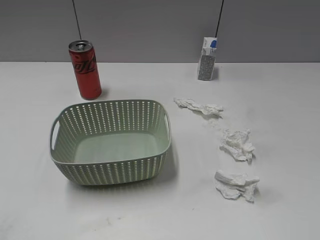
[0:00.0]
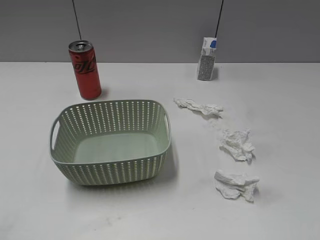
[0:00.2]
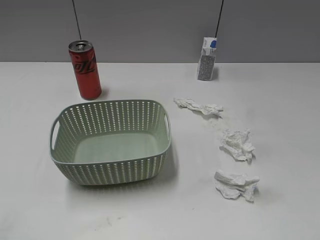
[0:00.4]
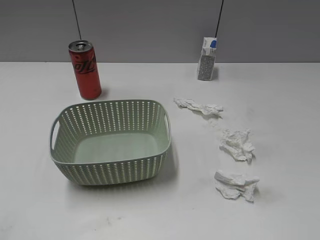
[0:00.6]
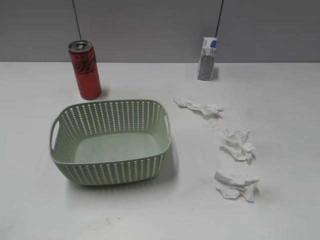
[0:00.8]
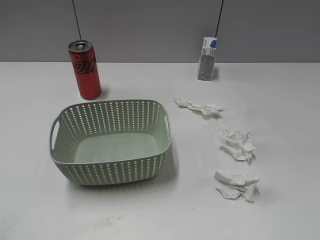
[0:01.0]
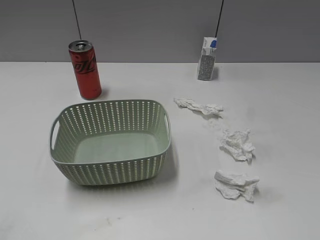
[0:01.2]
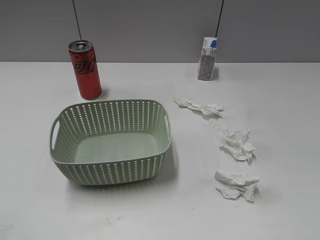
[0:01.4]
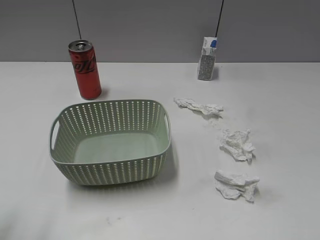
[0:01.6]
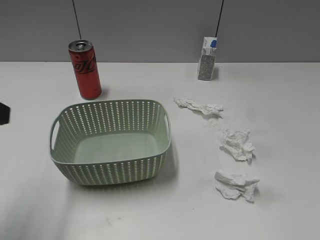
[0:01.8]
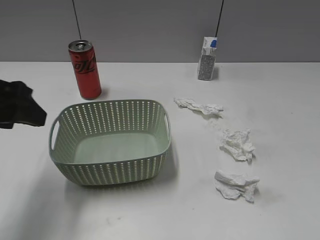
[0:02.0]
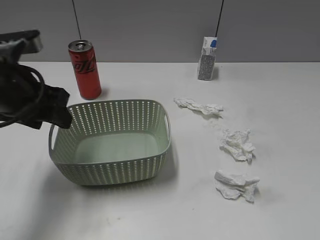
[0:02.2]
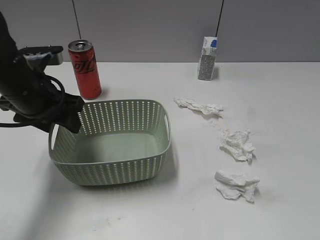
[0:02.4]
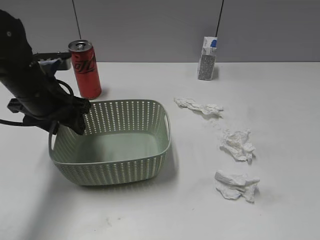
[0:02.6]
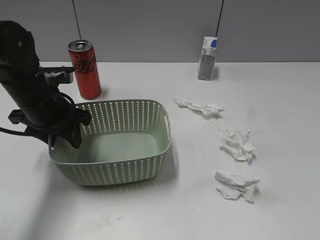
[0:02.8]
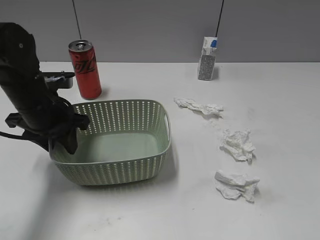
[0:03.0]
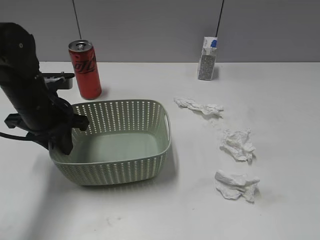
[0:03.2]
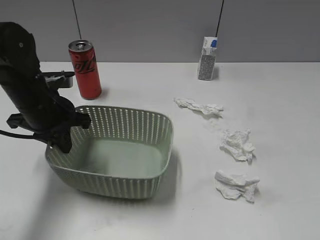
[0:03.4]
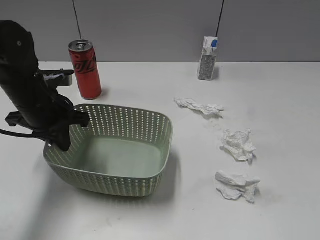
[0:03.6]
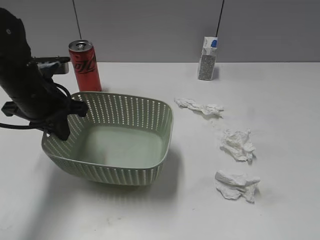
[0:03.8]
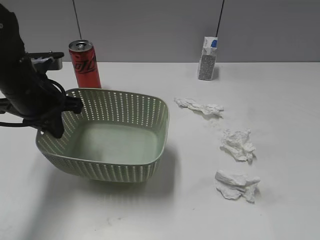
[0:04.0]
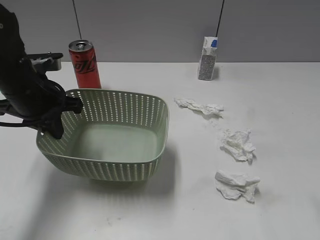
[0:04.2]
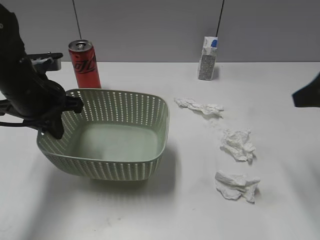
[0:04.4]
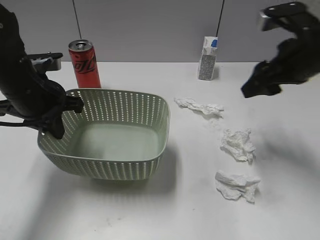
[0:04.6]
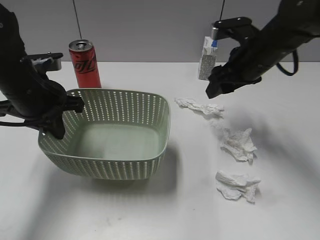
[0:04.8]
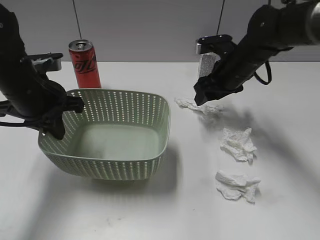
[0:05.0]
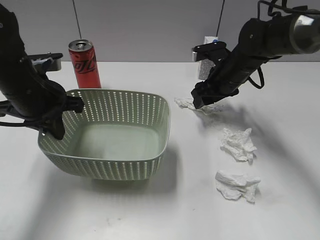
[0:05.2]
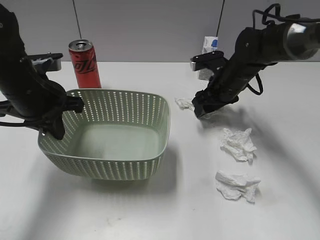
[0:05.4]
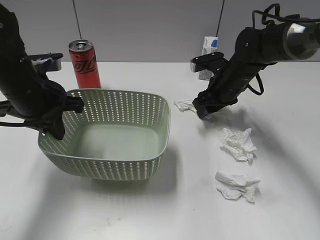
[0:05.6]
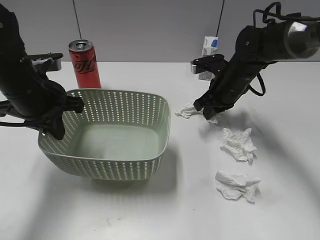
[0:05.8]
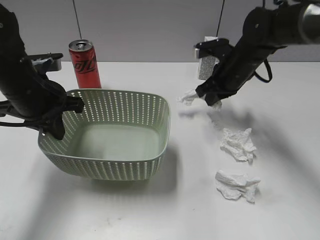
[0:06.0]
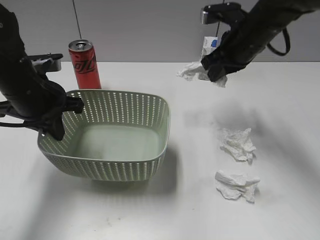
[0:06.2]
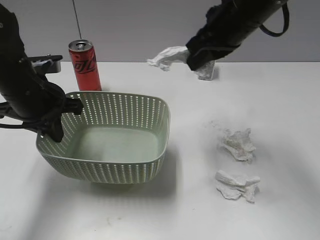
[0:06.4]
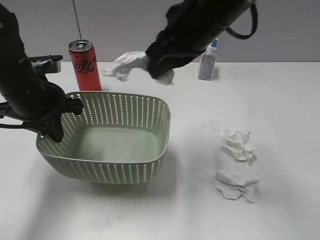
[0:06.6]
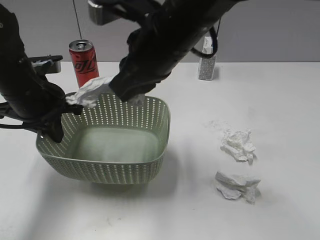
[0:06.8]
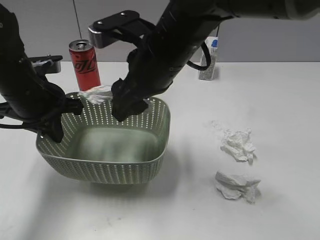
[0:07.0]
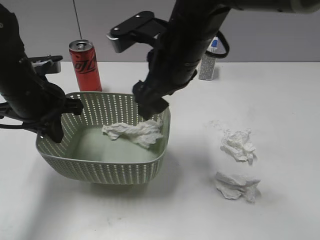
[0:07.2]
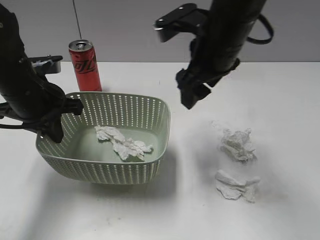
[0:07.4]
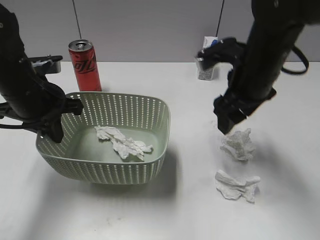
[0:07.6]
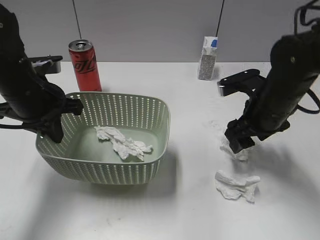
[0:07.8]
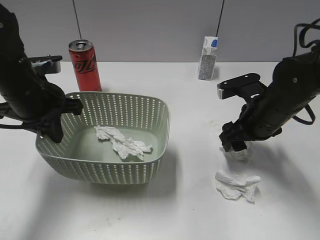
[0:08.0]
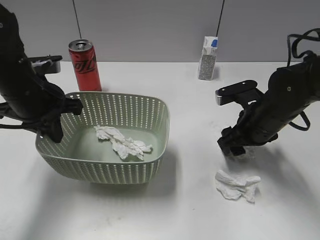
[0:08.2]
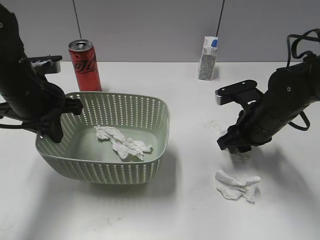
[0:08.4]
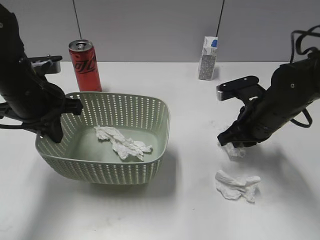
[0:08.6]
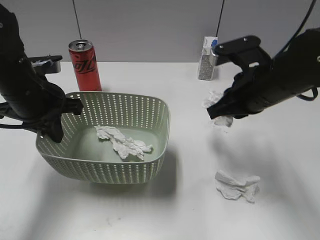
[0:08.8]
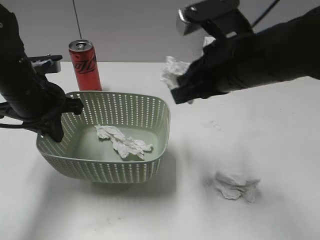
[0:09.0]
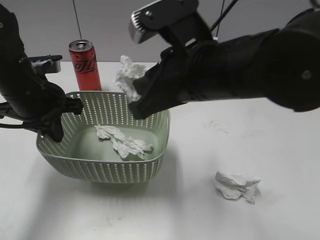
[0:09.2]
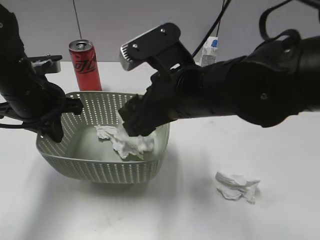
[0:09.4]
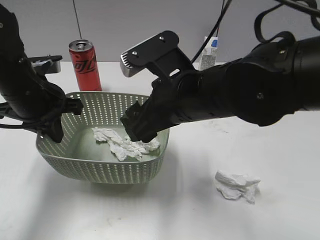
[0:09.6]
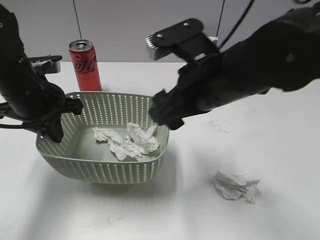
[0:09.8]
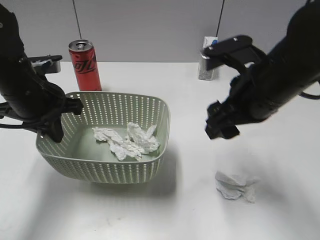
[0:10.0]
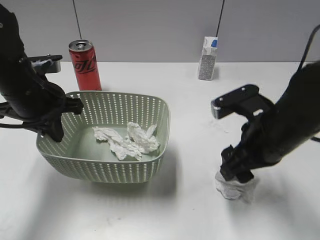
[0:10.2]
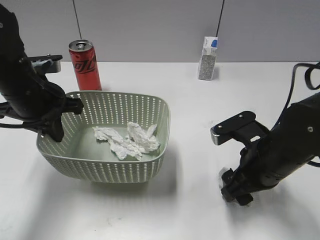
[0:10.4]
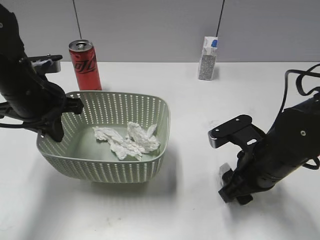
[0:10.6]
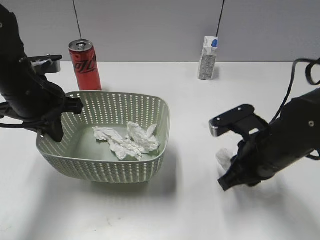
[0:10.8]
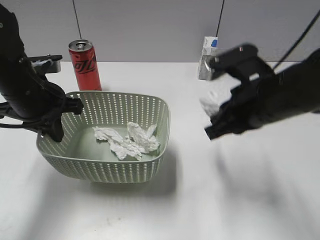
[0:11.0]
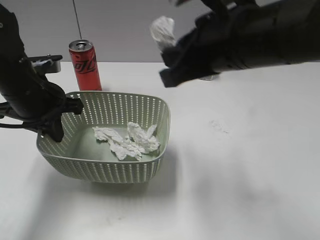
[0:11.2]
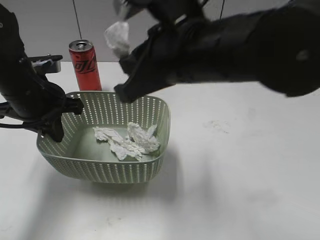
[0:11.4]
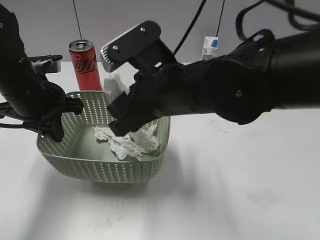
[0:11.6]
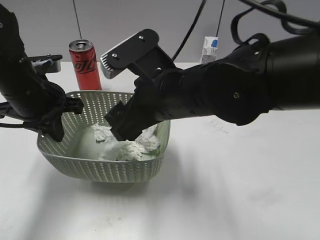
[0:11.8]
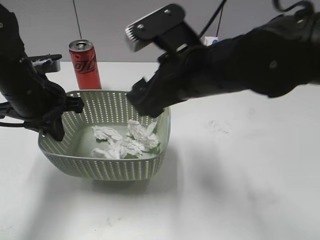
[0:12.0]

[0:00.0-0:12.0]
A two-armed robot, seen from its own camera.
Step, 0:01.8 to 0:03.6: Grasp the basket with left gripper.
Step, 0:04.4 to 0:06.0: Grasp the waste paper with right gripper.
Step, 0:06.2 to 0:07.2: Place the waste paper in the basket with right gripper.
Step, 0:07.4 to 0:08.6: Grasp the waste paper with right gripper.
Step, 0:08.8 to 0:10.0: Place the waste paper in the basket with right gripper.
Step, 0:10.2 to 0:10.8: Grasp the waste paper with right gripper.
Step, 0:11.0 to 0:12.0: Place the waste paper in the basket with right gripper.
0:01.6 to 0:03.0: The left gripper is displaced forward, downward and to the right by roughly 25 cm.
0:03.0 to 0:04.4: The right gripper goes approximately 25 cm forward, while the left gripper closes up.
0:04.4 to 0:06.0: The right gripper shifts roughly 25 cm forward, downward and to the left, and closes up.
0:06.0 to 0:07.6: The right gripper shifts about 10 cm backward and upward, and opens up.
0:07.6 to 0:09.0: The right gripper moves backward and upward, roughly 10 cm, and closes up.
0:09.0 to 0:10.4: The right gripper goes some 15 cm downward and to the right, and opens.
0:10.4 to 0:12.0: The right gripper heads upward and to the left, covering roughly 15 cm, and closes and opens again.

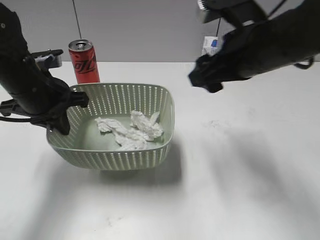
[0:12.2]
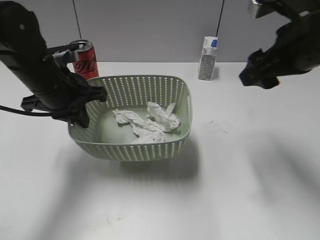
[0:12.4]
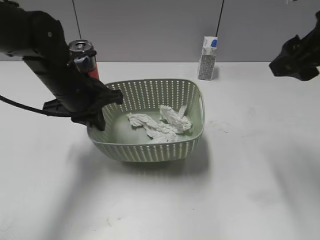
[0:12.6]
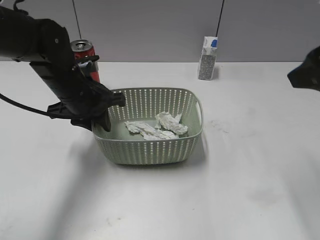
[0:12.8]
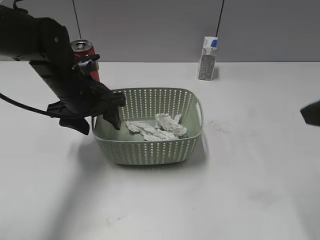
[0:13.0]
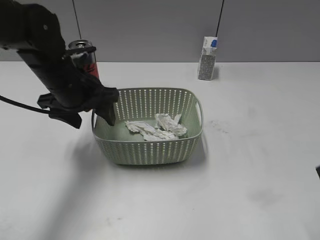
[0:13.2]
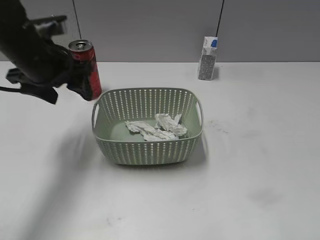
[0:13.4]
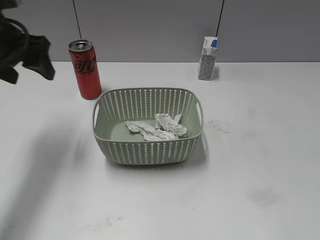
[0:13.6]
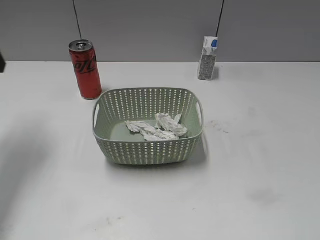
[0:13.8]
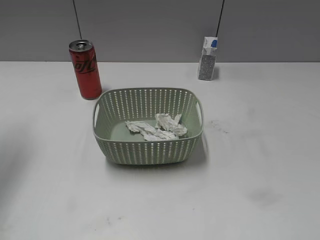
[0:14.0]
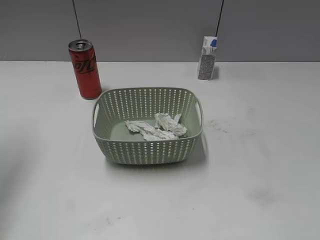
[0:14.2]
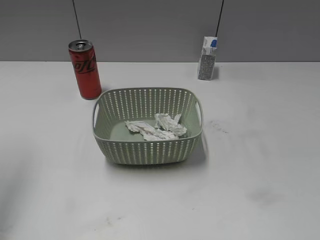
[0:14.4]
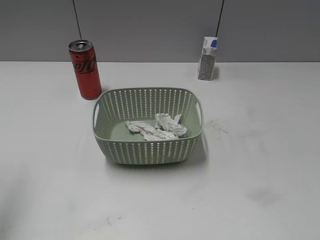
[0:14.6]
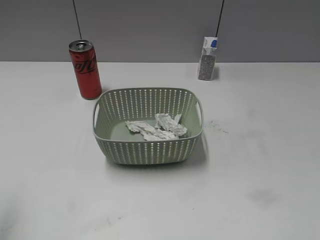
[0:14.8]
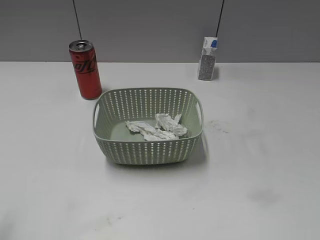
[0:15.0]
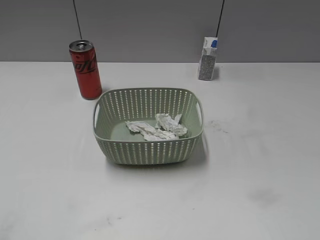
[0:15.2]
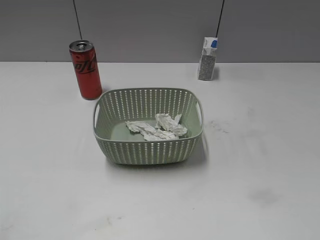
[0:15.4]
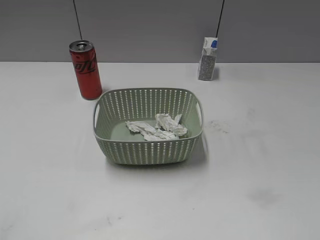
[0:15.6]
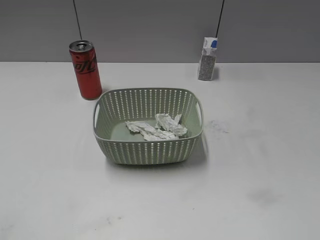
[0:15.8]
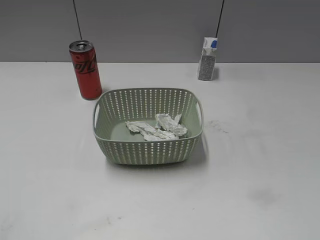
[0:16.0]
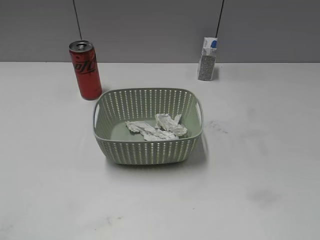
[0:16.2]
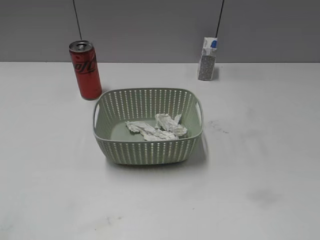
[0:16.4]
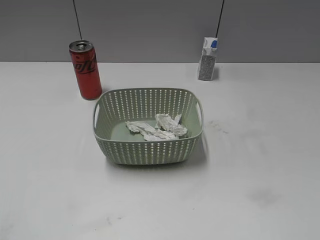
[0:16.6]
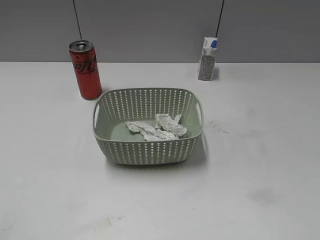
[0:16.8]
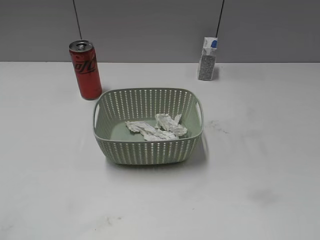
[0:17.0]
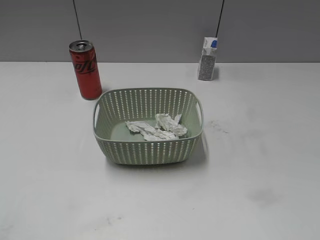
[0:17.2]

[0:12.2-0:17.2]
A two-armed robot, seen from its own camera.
Step, 0:12.2 to 0:13.2: Place the basket on the table with left gripper.
0:12.2 to 0:13.8: The right gripper travels backward and to the right by some 30 cm. The left gripper moves to the left and upward, approximately 15 cm, and opens.
0:13.8 to 0:15.6: The left gripper shifts approximately 30 cm backward.
0:15.6 to 0:17.2: Both grippers stay put.
